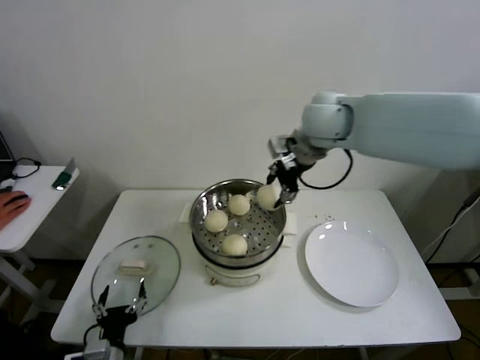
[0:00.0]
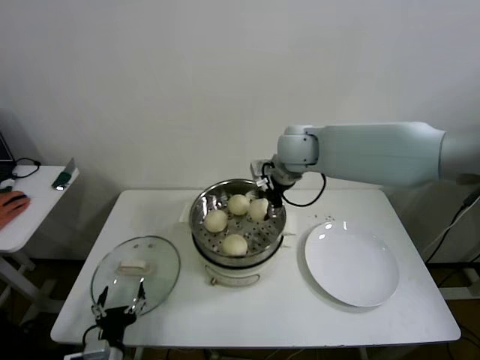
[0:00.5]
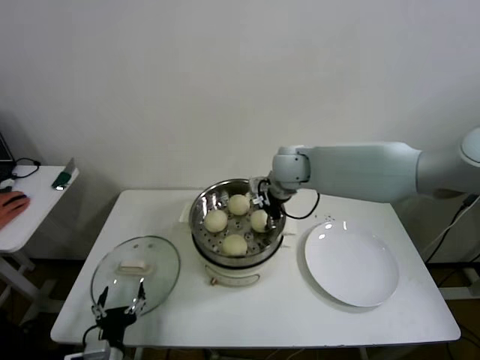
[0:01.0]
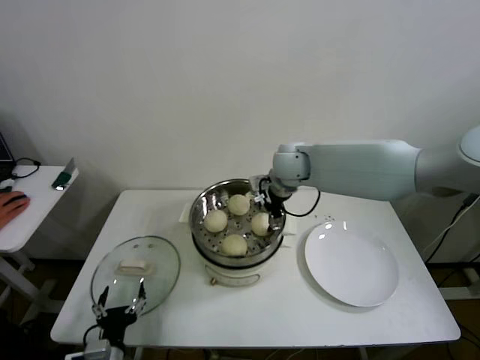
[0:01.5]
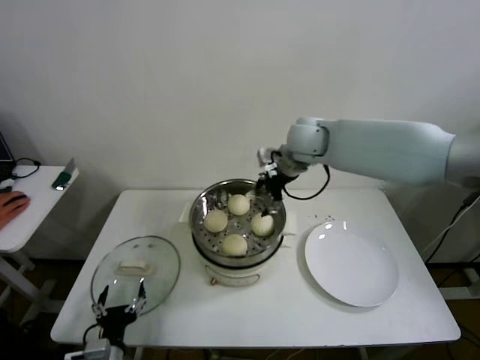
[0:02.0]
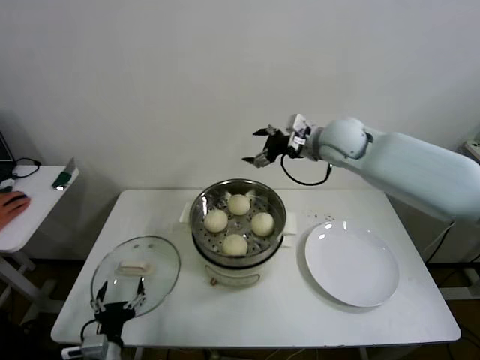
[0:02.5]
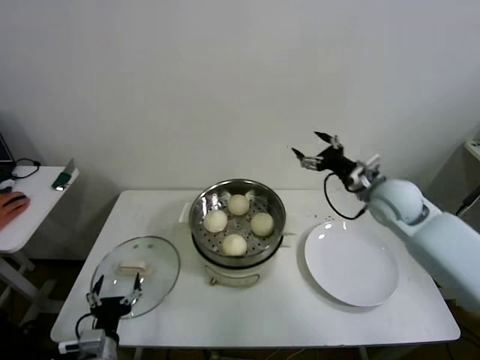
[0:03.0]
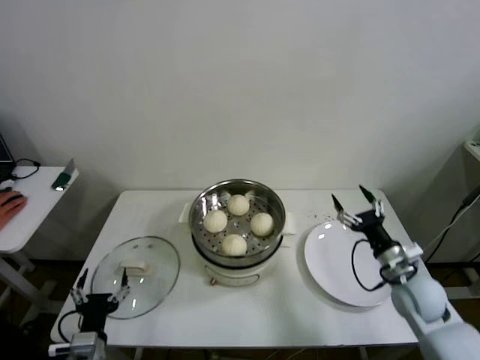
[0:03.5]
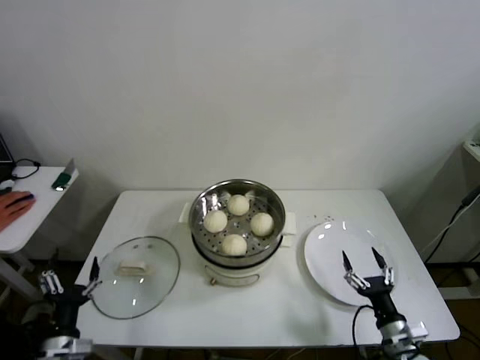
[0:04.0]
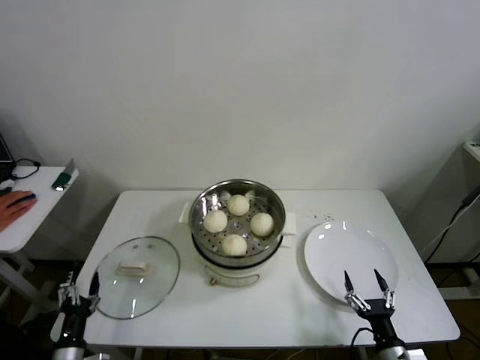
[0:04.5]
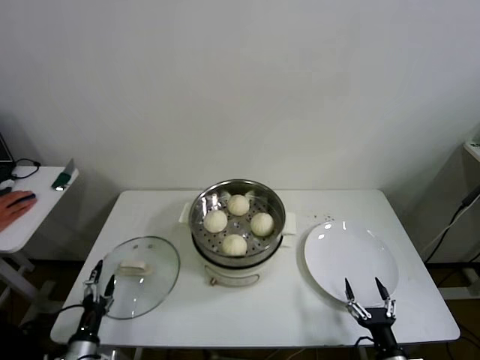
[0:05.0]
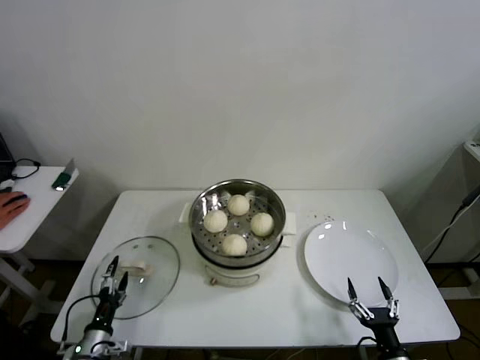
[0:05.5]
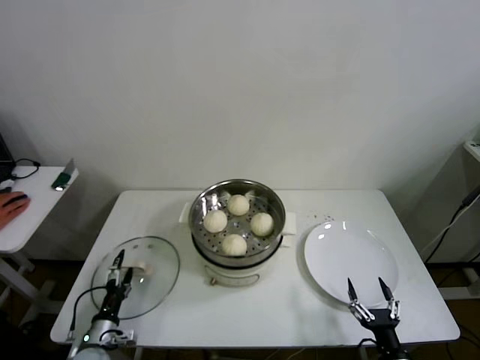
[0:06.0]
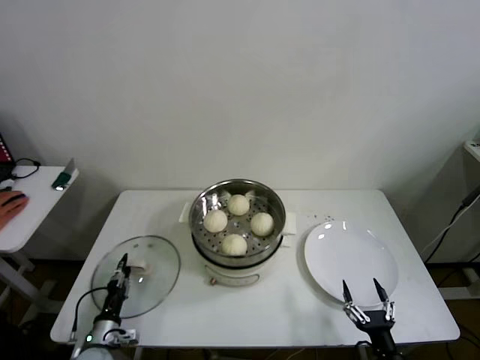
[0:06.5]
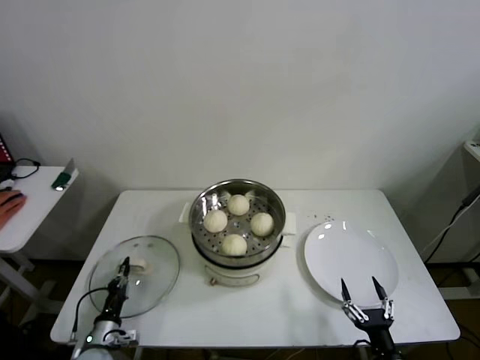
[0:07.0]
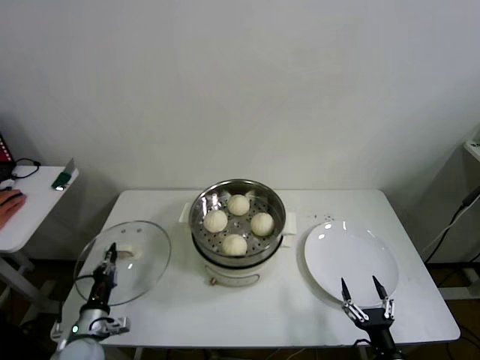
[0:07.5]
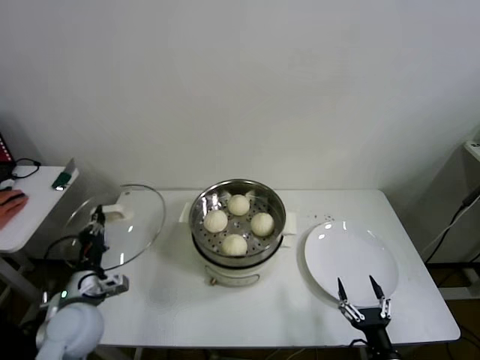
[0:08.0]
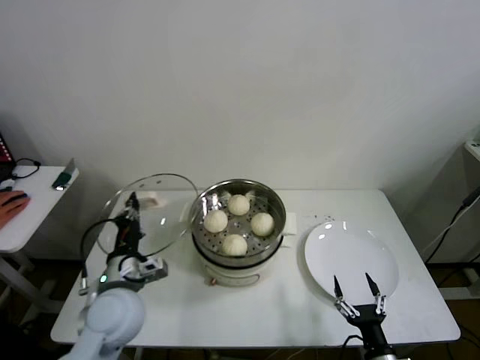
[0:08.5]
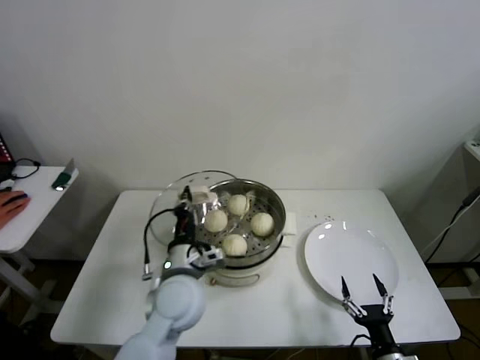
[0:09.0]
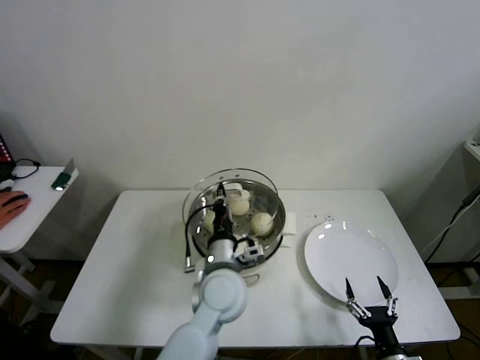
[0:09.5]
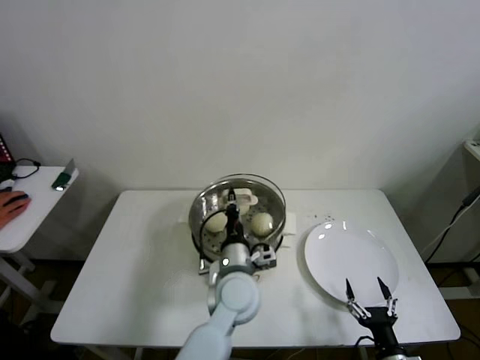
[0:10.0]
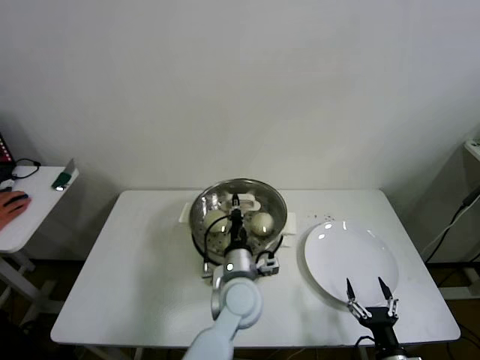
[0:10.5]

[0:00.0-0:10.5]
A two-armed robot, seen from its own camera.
Step, 0:00.0 to 0:01.5: Place the baozi on the steamer with right gripper.
Step, 0:02.0 to 0:06.5: Grasp the pot lid with left gripper.
0:00.0 to 0:02.0: The right gripper goes about 5 cm downward, and opens its fingers.
0:02.0 to 0:04.0: The right gripper shifts some 50 cm backward, downward and to the right, while the left gripper is displaced to the left by about 5 cm.
0:04.0 to 0:06.5: The left gripper travels downward and forward by roughly 15 cm, and closes up; the right gripper goes roughly 10 cm backward.
0:06.5 to 0:08.5: The left gripper travels upward and to the right by about 25 cm, and closes up.
0:08.5 to 0:10.5: The left gripper travels to the right by some 25 cm.

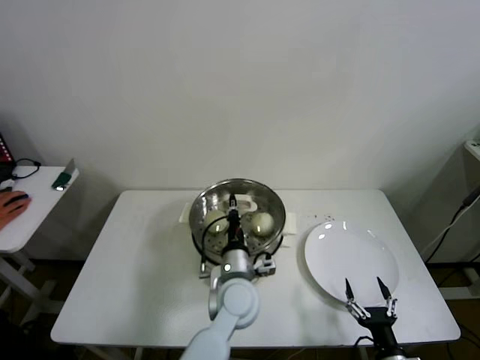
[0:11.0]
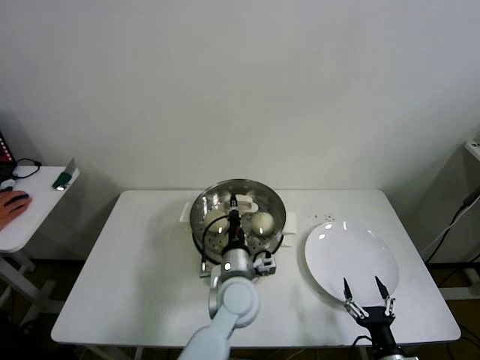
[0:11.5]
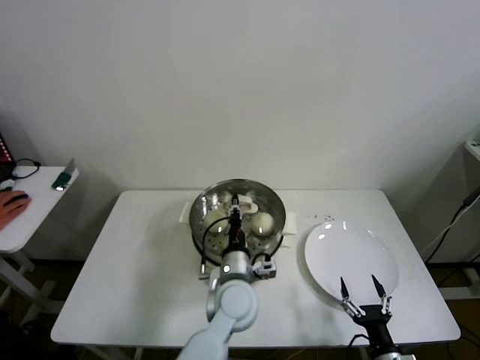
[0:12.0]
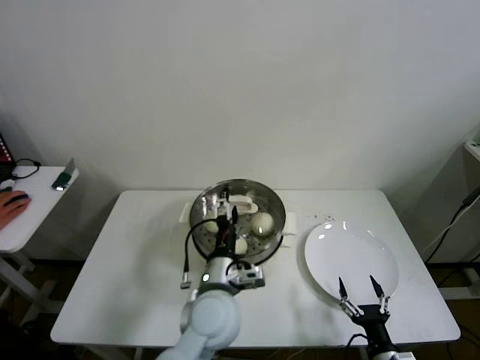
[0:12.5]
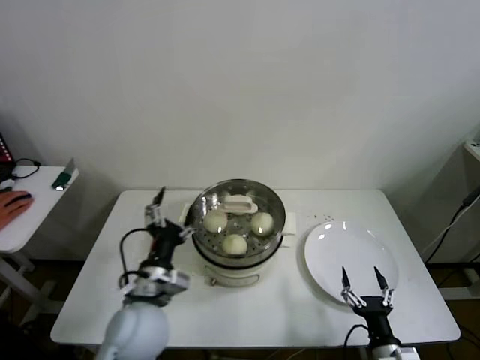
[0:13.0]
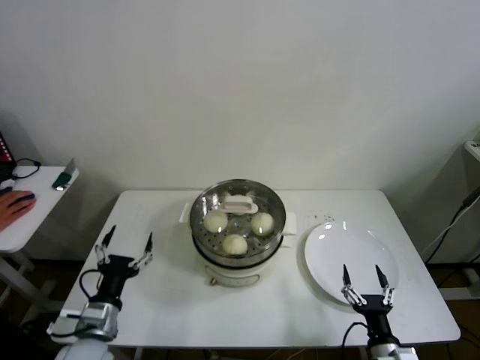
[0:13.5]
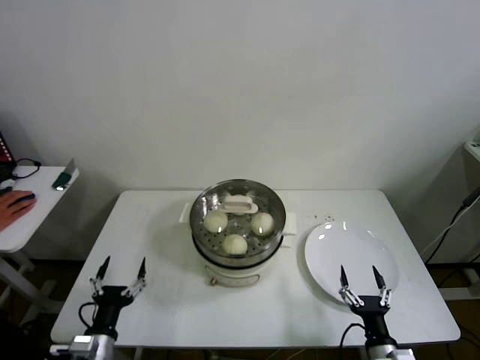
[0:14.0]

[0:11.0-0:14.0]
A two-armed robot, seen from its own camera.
0:11.0 to 0:12.5: The left gripper moves roughly 5 cm, and opens up.
0:12.5 to 0:14.0: The left gripper goes some 30 cm to the left and backward.

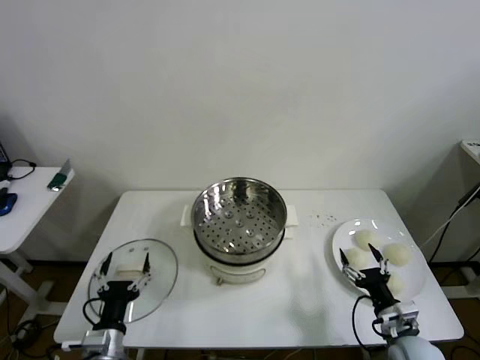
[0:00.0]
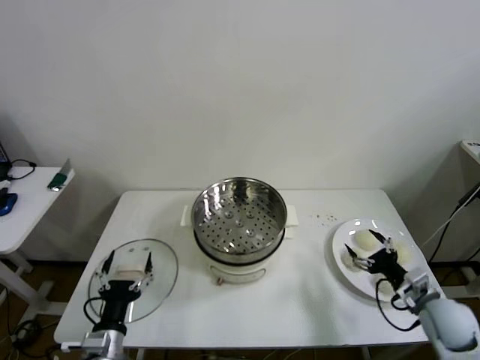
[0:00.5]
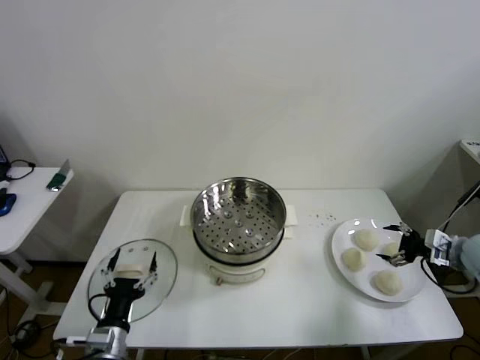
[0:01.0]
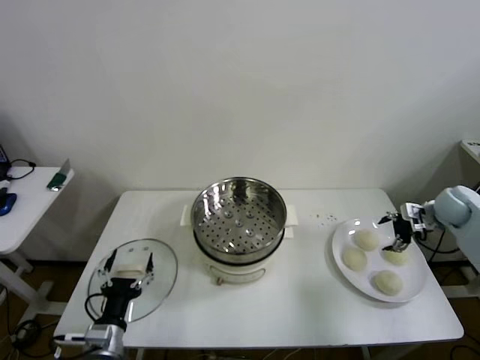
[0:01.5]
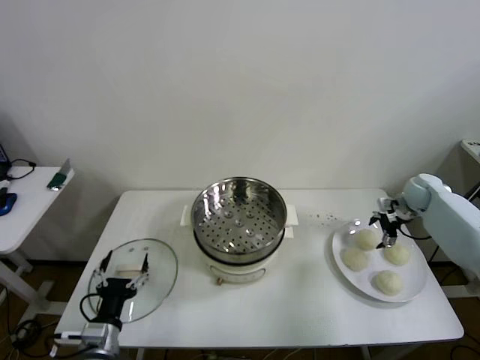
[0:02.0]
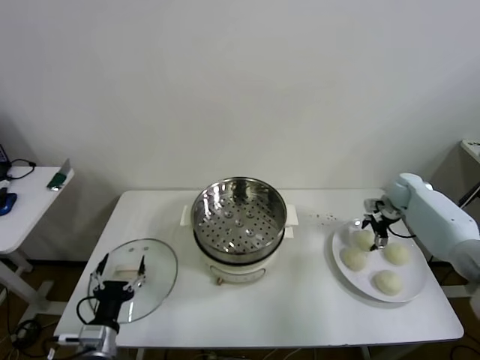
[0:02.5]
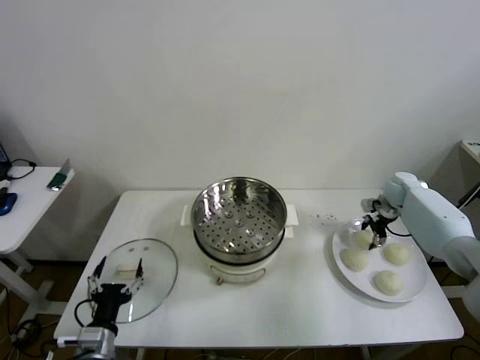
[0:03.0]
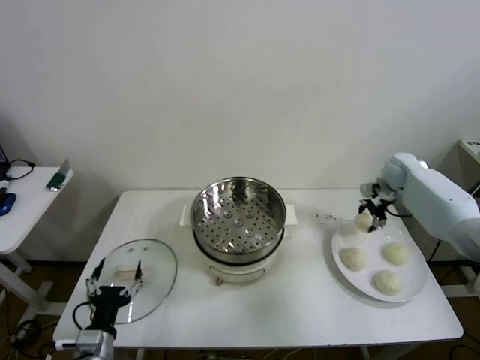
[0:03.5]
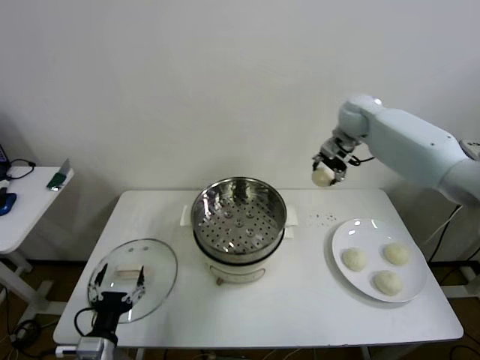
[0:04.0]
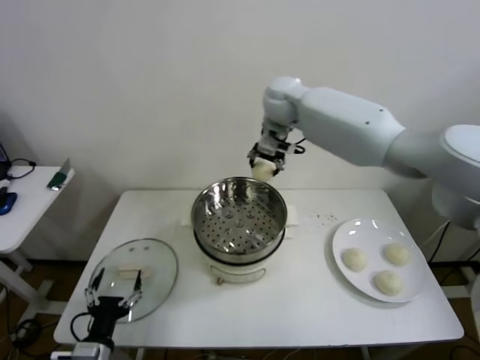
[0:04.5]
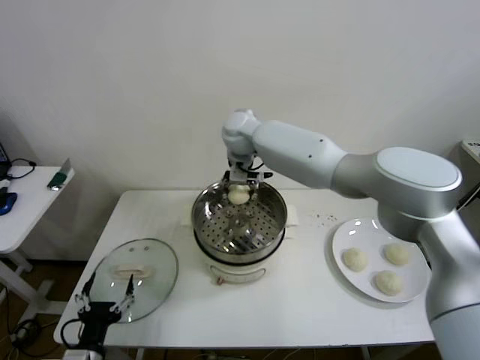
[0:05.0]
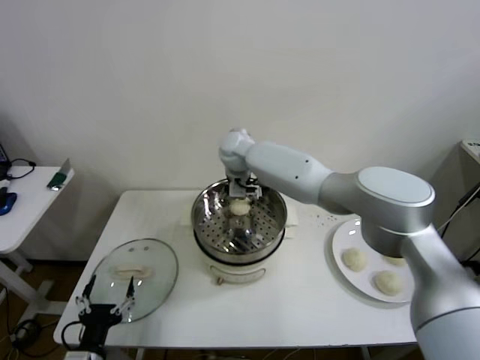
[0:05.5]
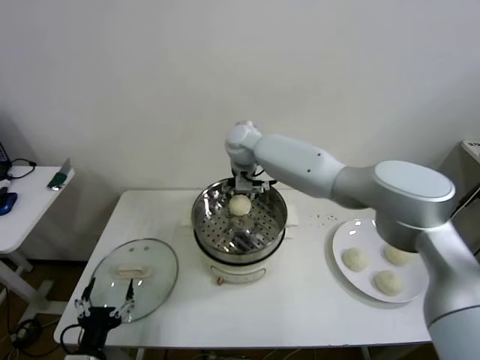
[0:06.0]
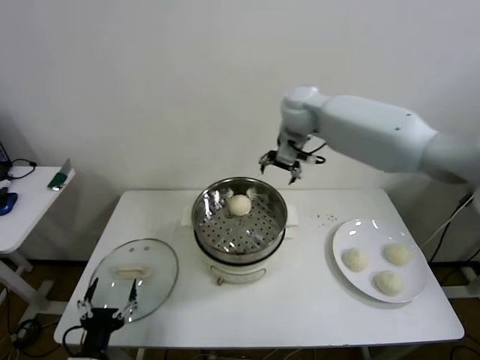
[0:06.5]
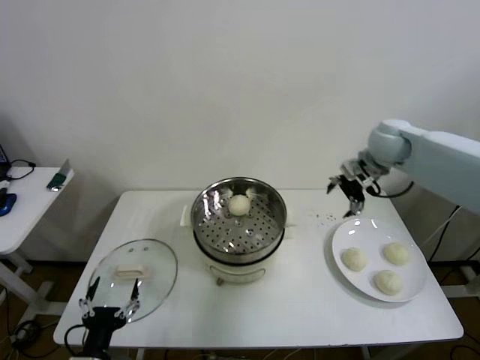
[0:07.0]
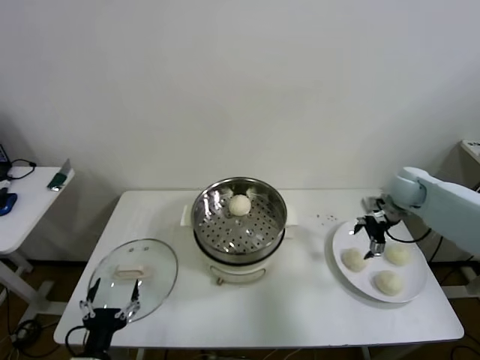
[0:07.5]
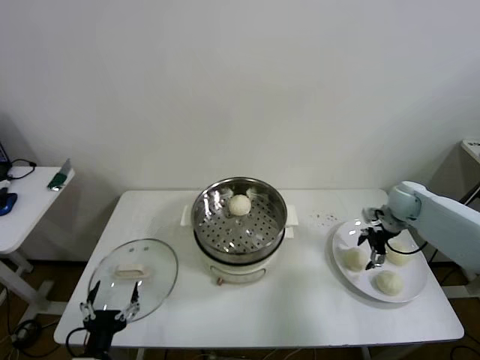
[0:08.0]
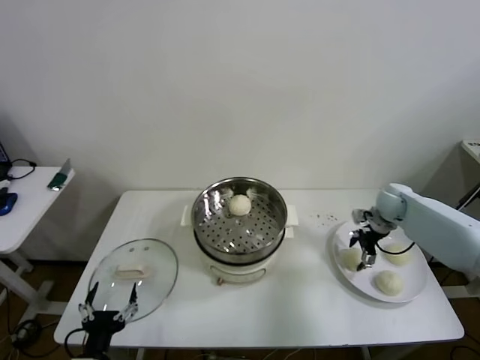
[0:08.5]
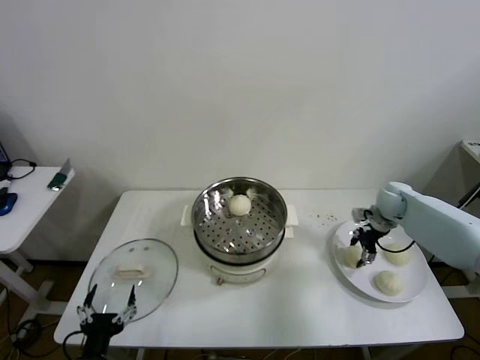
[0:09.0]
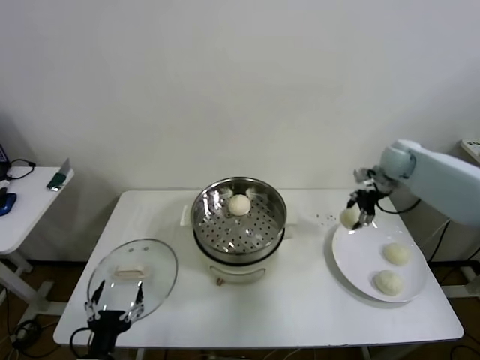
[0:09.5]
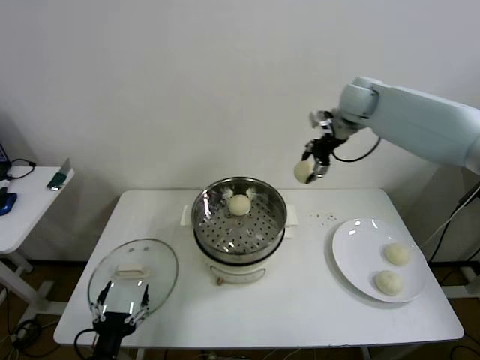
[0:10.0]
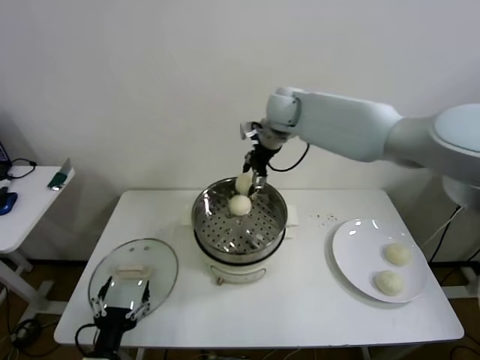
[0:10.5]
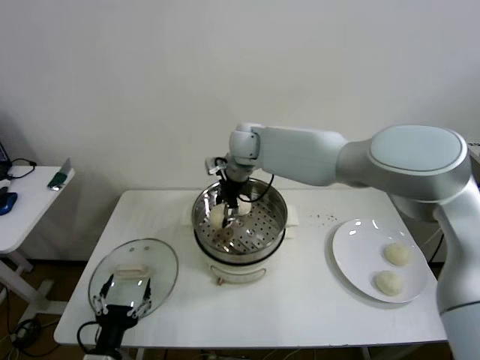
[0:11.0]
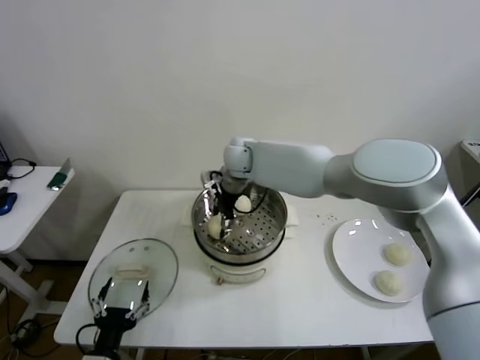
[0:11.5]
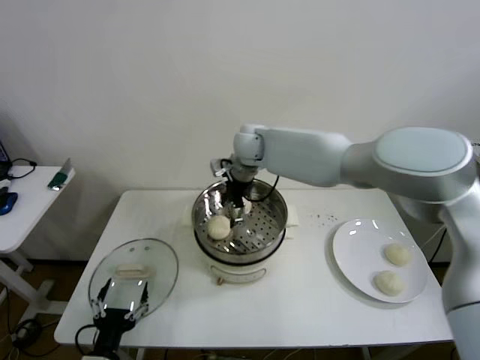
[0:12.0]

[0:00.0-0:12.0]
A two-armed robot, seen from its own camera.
Step, 0:00.0 to 0:02.5: Grasp the baozi in the plate with right gripper.
Step, 0:03.0 to 0:06.0: Place the baozi on the steamer with right gripper.
Step, 0:06.5 to 0:09.0: Grasp the baozi in the plate with right gripper.
Step, 0:09.5 to 0:11.5: Place the baozi on the steamer with right gripper.
0:02.0 to 0:04.0: The right gripper moves to the left and upward, approximately 35 cm, and closes.
0:04.0 to 0:06.0: The right gripper heads to the left, covering some 20 cm, and opens.
0:06.0 to 0:08.0: The right gripper heads to the right and downward, covering some 40 cm.
0:08.0 to 0:10.0: The right gripper goes some 30 cm upward and to the left, and closes up.
0:10.0 to 0:12.0: The right gripper travels to the left and downward by some 20 cm, and opens up.
